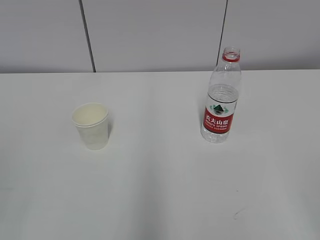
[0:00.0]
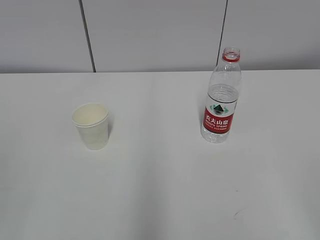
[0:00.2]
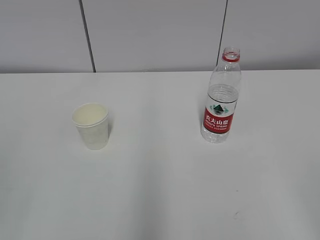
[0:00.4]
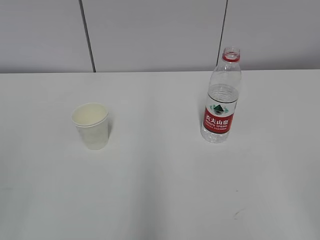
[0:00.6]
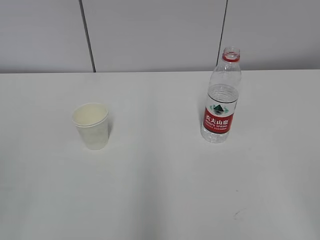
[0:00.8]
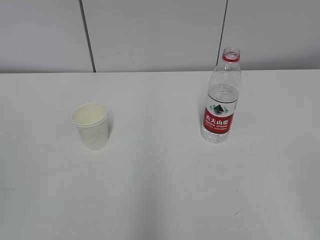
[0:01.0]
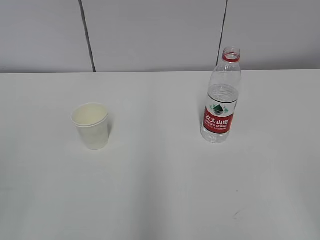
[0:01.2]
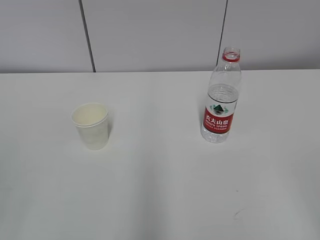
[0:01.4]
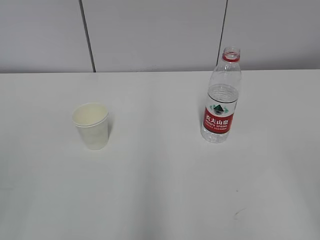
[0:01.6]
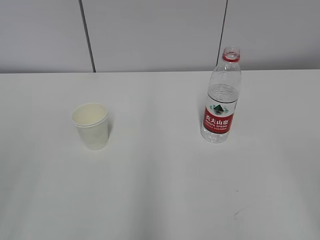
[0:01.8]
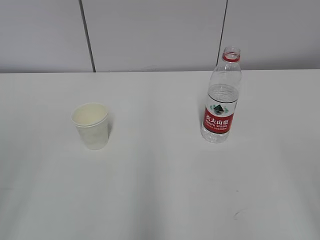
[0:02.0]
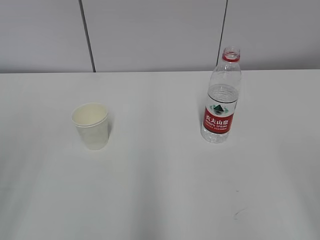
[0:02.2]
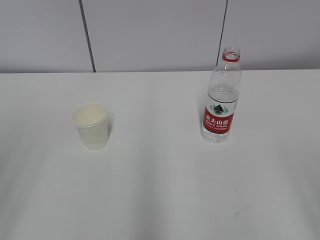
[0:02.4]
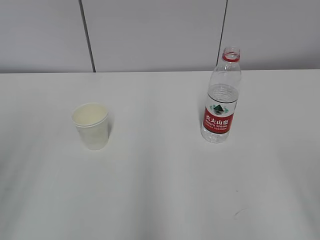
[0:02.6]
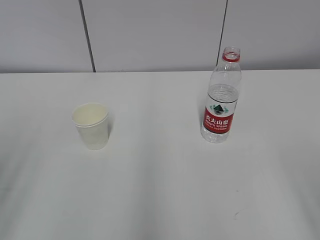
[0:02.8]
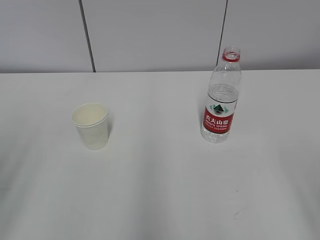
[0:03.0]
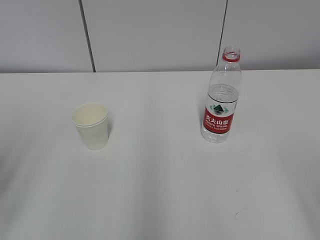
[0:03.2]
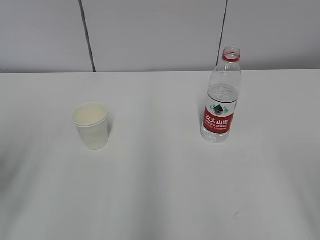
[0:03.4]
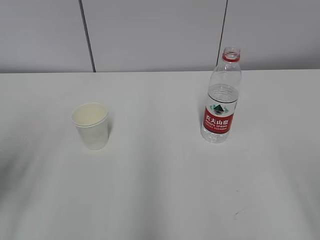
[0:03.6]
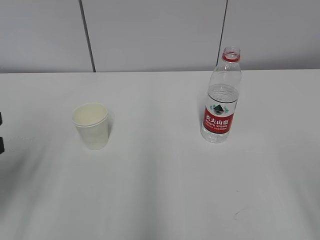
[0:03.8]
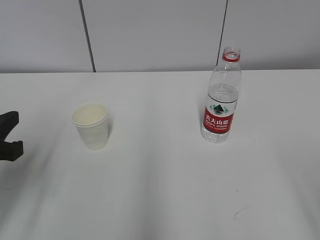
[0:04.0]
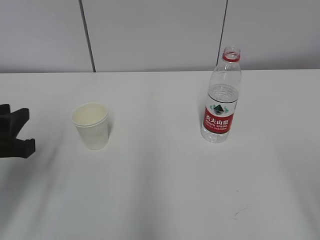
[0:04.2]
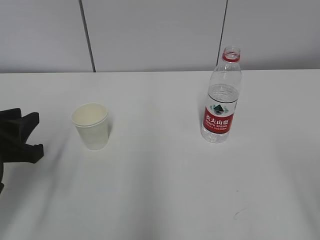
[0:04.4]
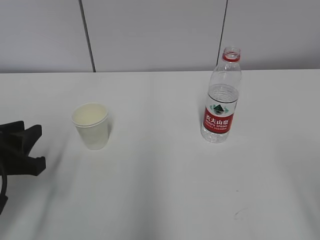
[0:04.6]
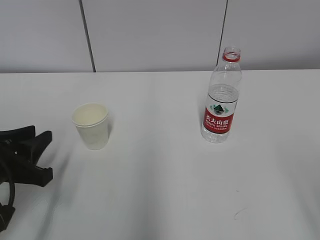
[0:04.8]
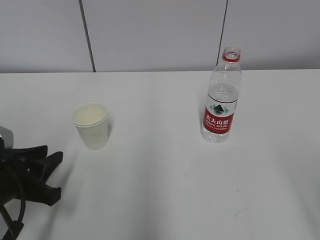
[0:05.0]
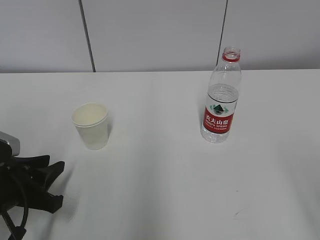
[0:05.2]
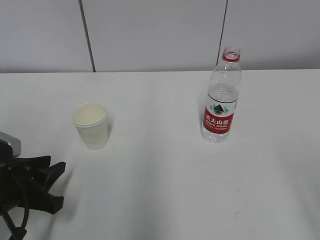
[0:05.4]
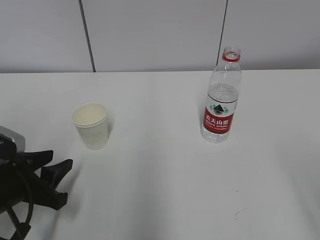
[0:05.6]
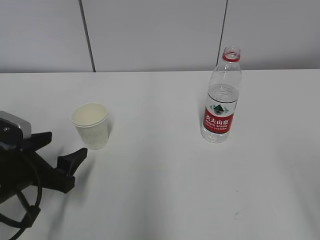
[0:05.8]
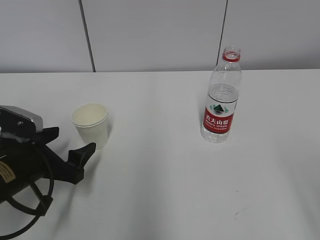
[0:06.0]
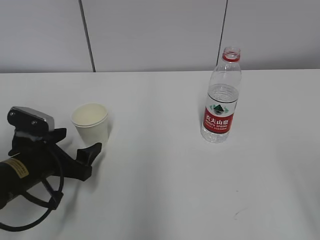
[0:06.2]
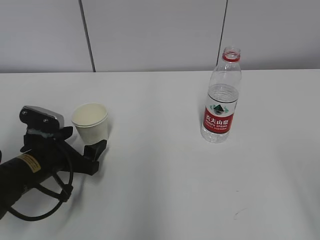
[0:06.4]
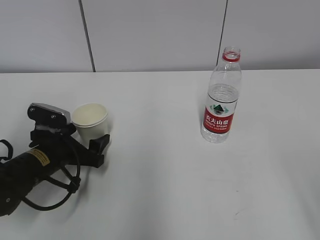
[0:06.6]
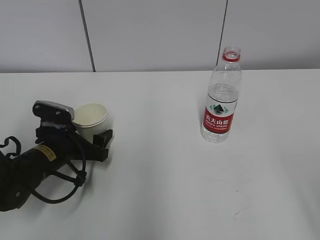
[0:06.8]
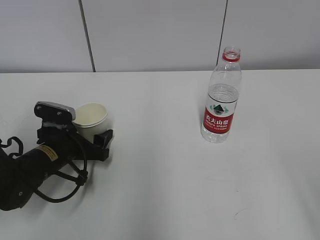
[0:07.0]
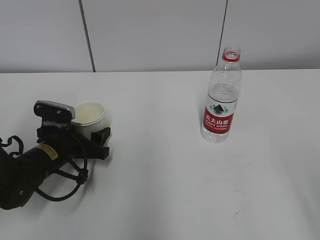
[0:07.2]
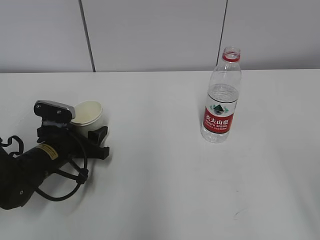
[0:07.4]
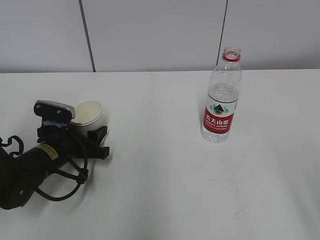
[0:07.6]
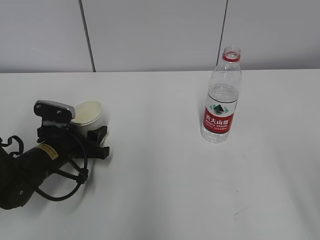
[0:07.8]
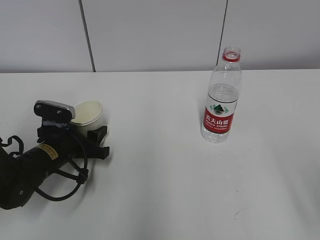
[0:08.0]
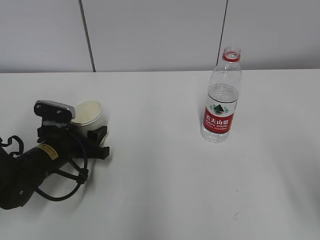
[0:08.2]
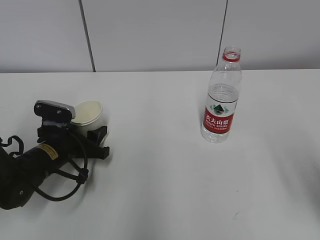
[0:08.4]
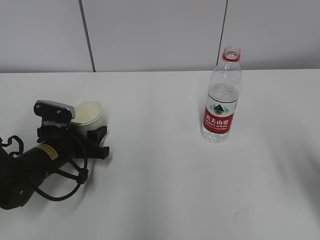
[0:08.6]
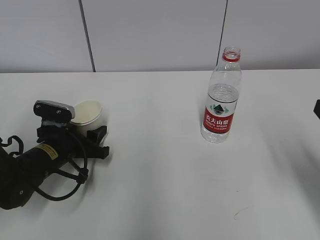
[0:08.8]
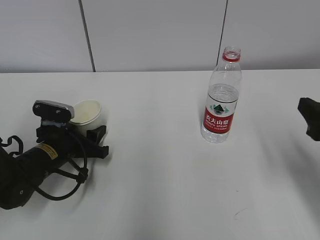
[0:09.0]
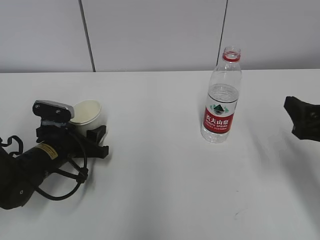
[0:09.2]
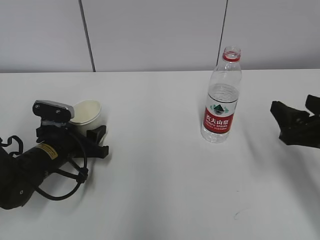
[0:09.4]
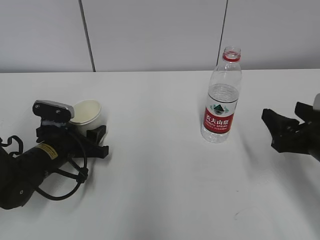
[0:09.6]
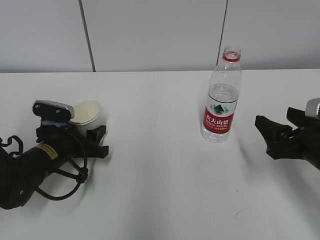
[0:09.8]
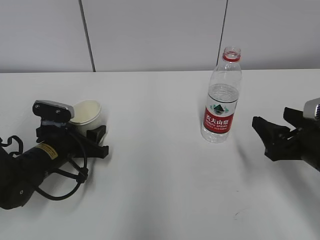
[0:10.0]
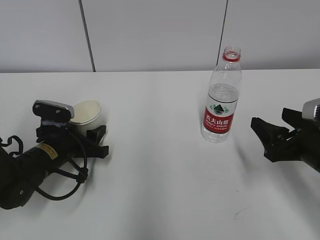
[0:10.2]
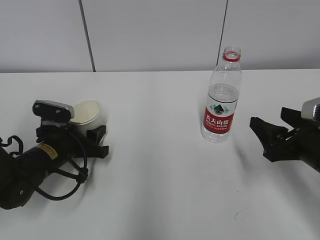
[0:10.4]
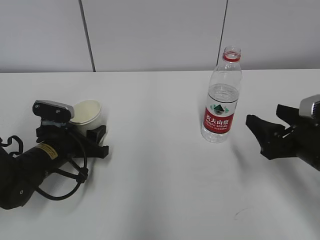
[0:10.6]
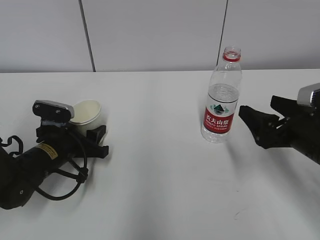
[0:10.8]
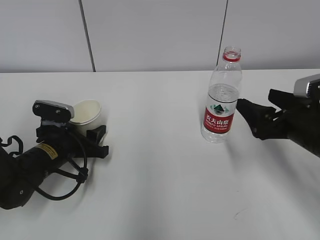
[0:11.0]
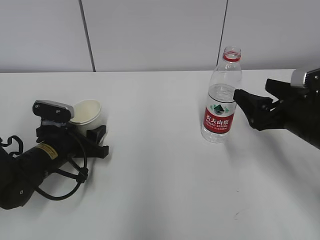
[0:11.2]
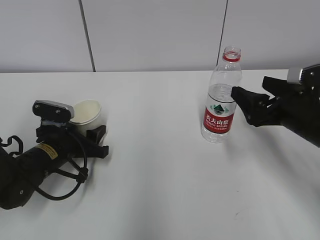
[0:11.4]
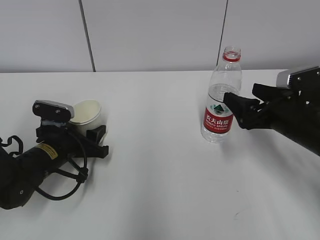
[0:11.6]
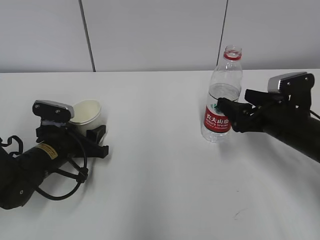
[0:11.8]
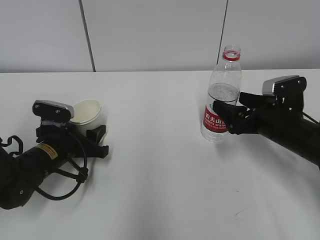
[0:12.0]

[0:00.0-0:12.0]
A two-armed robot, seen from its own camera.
Step, 0:00.0 to 0:10.8: Grab the paper cup with the left hand.
0:03.0 to 0:04.4: The left gripper heads forward, downward and to the right, covering some 15 cm.
0:04.4 to 0:06.0: The left gripper shifts roughly 5 cm downward, and opens its fingers.
0:06.0 to 0:07.6: The left gripper goes roughly 10 cm forward, and closes up.
0:07.6 to 0:09.0: The right gripper shifts roughly 15 cm forward.
0:09.0 to 0:10.4: The right gripper shifts approximately 5 cm downward.
0:10.4 to 0:12.0: The right gripper heads forward, covering some 10 cm.

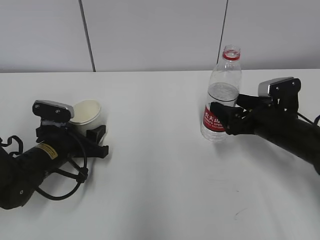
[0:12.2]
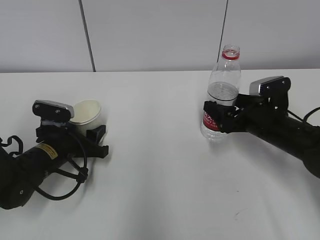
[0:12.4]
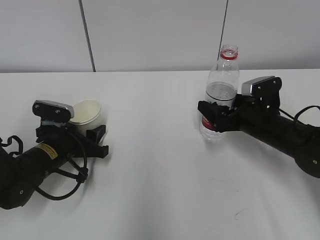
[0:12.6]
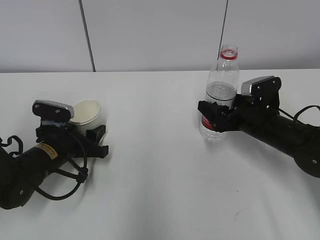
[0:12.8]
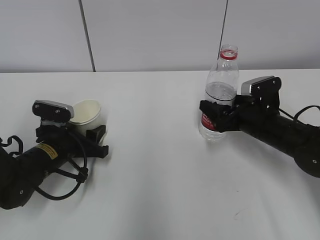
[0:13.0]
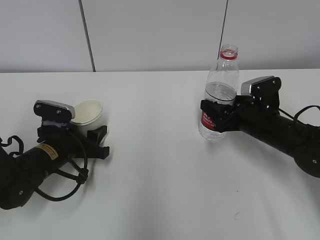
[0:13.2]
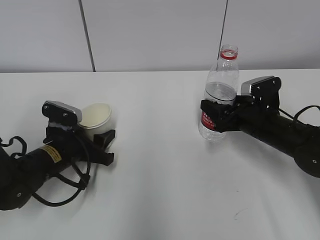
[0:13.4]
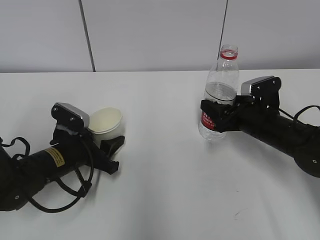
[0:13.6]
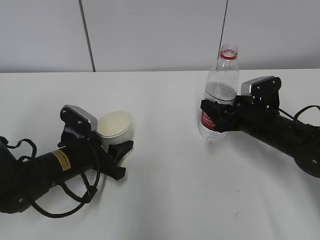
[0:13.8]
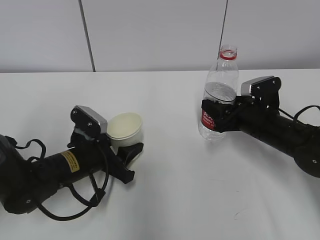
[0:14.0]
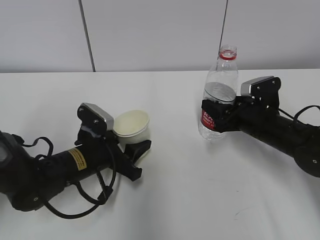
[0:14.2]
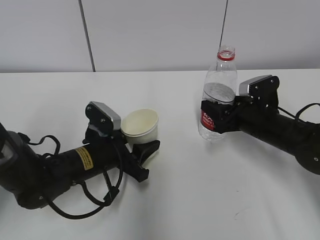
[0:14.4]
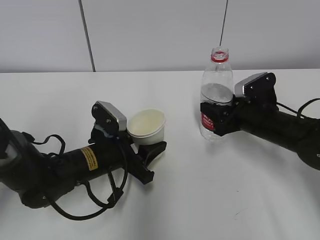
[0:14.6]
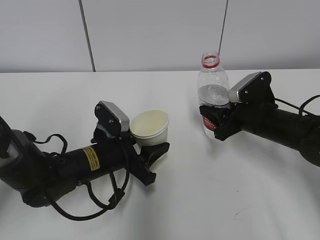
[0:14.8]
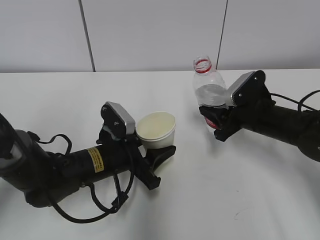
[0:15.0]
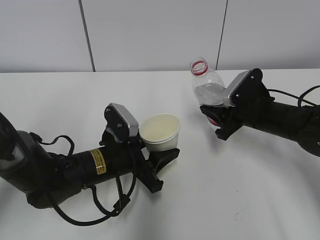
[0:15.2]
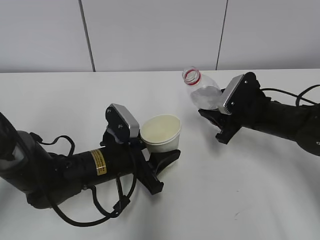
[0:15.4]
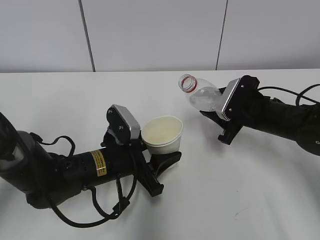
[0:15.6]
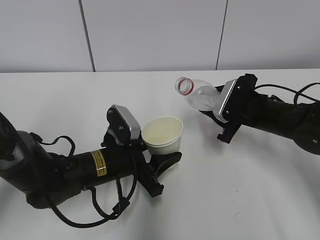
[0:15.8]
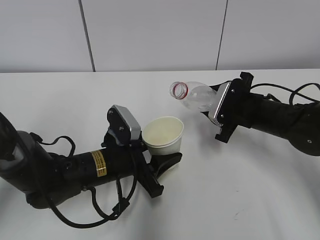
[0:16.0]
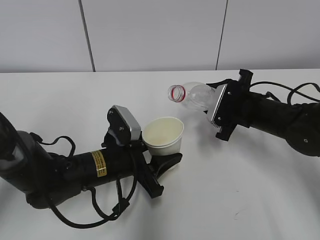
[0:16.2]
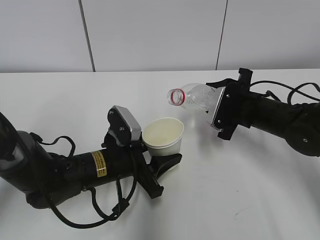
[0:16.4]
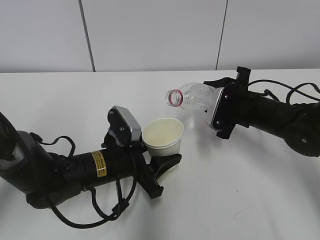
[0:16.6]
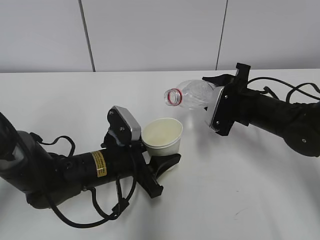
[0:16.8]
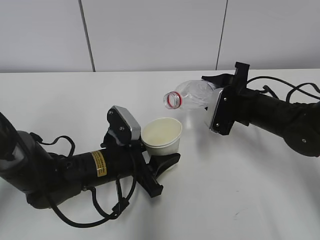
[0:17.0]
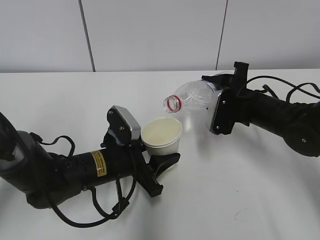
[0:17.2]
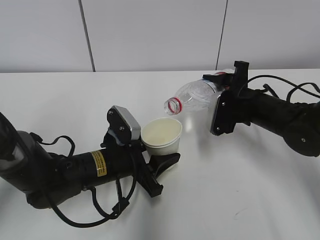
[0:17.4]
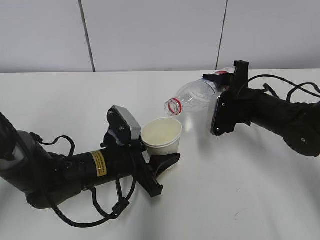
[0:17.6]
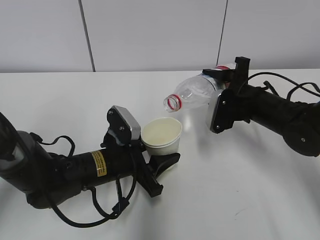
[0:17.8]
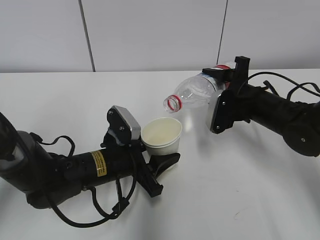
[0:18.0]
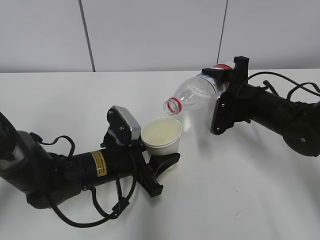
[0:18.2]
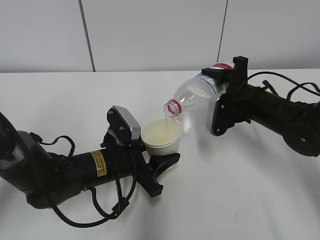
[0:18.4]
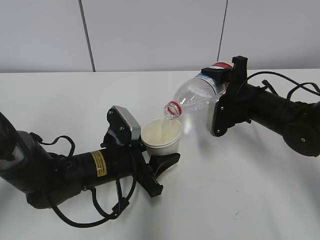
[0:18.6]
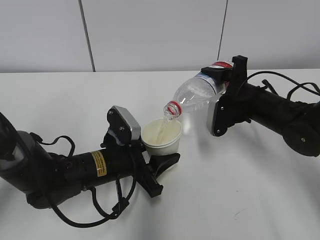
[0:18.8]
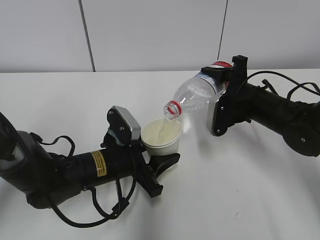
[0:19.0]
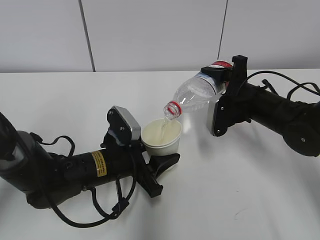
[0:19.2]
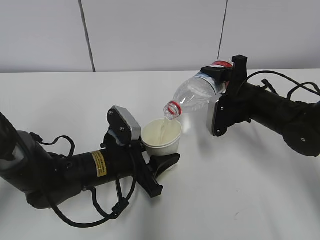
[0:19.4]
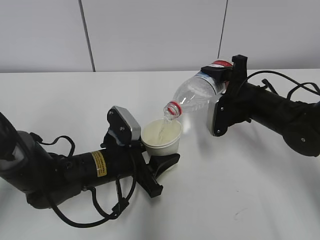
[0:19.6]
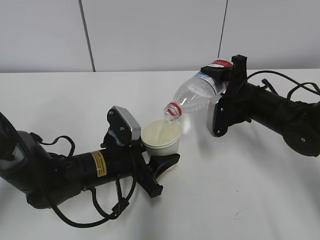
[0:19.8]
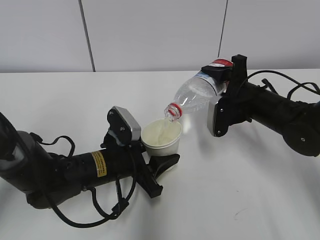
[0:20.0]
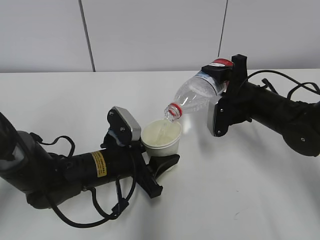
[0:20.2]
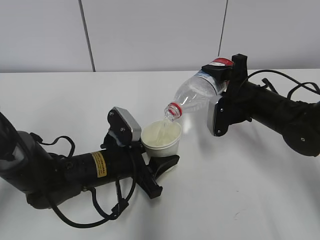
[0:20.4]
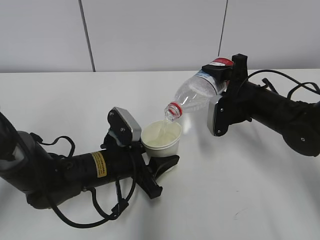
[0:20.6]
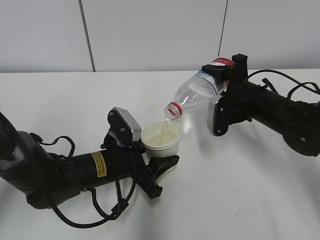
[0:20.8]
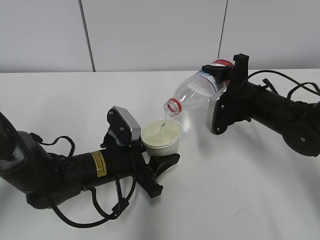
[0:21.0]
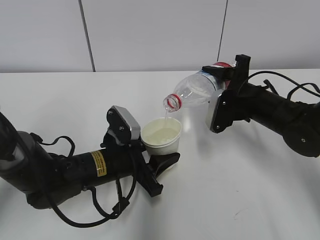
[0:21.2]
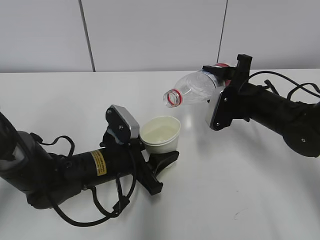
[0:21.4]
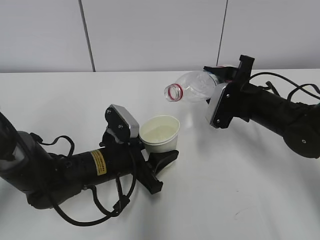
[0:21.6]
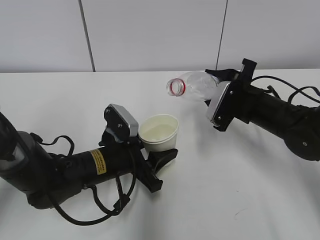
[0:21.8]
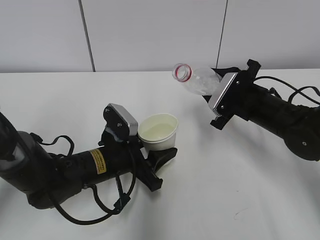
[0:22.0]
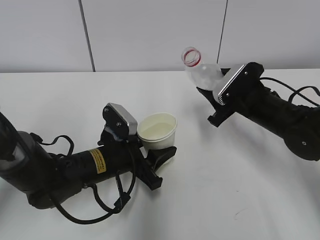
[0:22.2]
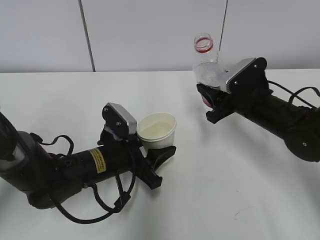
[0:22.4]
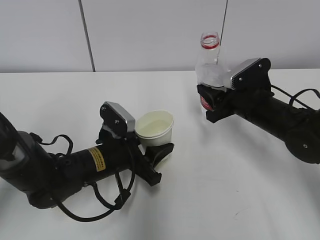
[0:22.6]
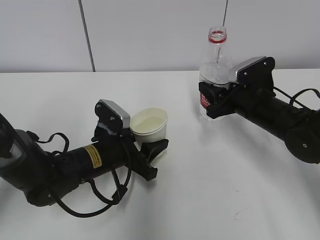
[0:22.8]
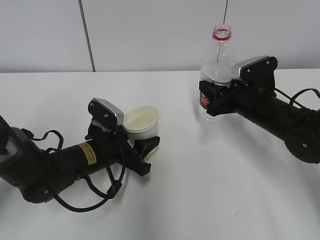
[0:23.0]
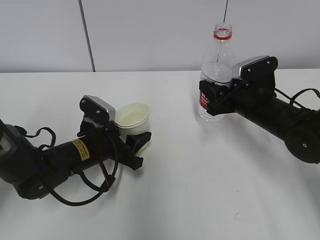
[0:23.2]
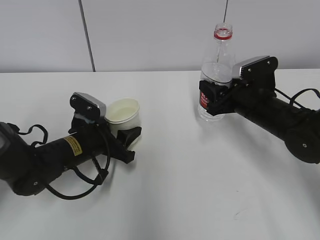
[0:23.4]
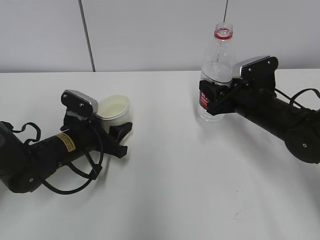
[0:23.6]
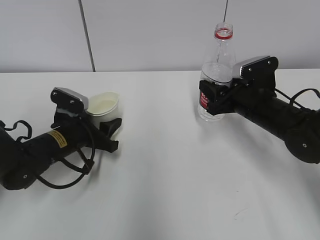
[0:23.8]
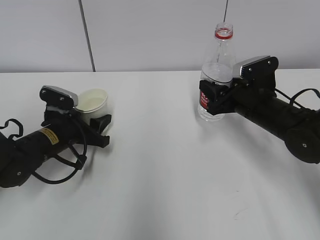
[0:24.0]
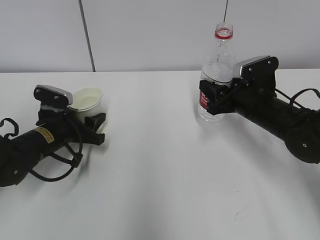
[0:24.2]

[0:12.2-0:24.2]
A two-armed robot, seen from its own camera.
Step, 0:12.2 to 0:15.2: Lift the paper cup with the left hand.
Step, 0:15.4 to 0:17.6: Fill water with the left hand.
Step, 0:15.4 to 0:17.6: Pour water with the right hand.
Step, 0:19.2 to 0:21.4: Place the paper cup with the left hand.
0:12.2 to 0:13.8: The right gripper closes.
0:13.8 to 0:15.2: The left gripper travels to the right by roughly 5 cm.
0:18.2 to 0:21.2: The grippers move only a little.
0:22.6 to 0:24.2: The left gripper heads to the left and forward, covering roughly 15 cm.
